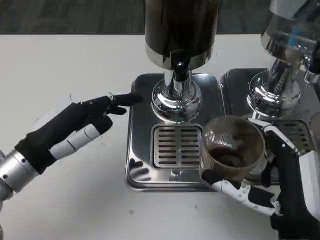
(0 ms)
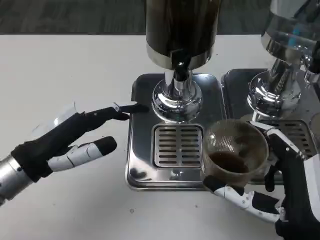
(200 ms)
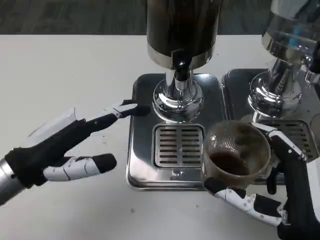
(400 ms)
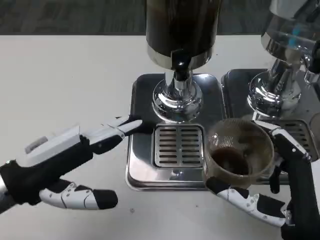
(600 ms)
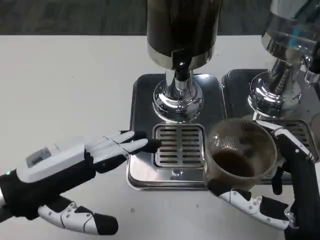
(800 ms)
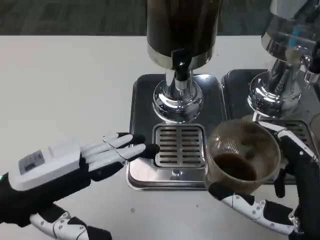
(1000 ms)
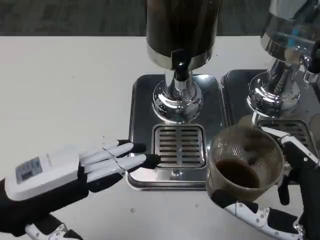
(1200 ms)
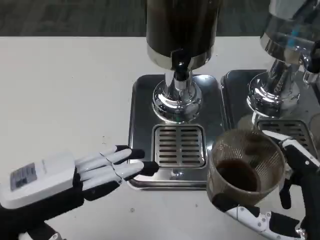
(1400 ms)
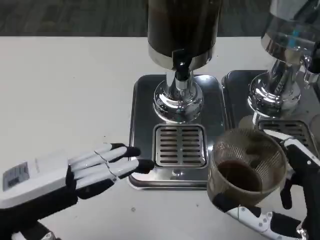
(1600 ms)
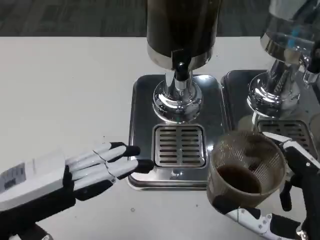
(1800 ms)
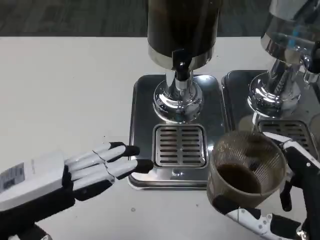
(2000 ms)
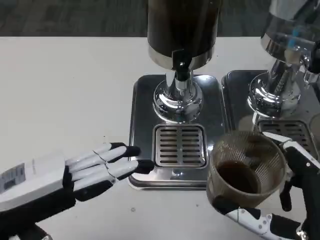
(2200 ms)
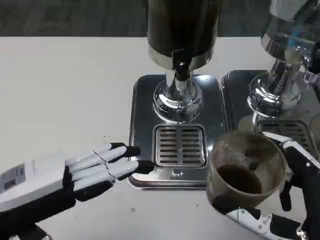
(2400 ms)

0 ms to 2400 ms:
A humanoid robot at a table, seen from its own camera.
Task of the whole recording: Grasp the cup under the faucet to collect the drink, then remove the cup.
0 ms to 1200 ms: The right hand moves roughly 5 cm. The left hand shifts approximately 5 cm backward.
1200 ms to 2400 ms: The hands stay close to where they were, moving slightly.

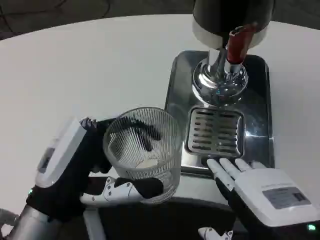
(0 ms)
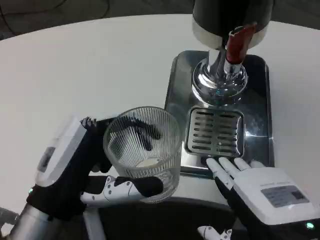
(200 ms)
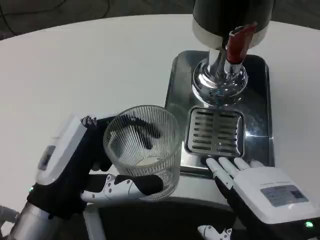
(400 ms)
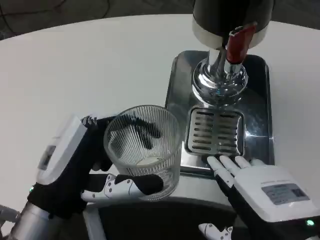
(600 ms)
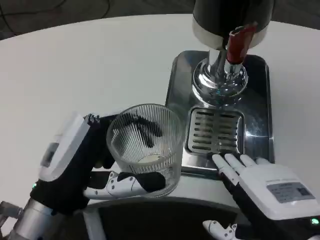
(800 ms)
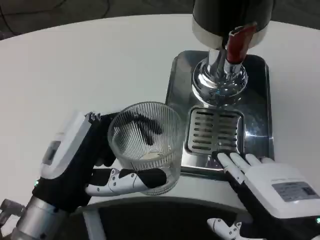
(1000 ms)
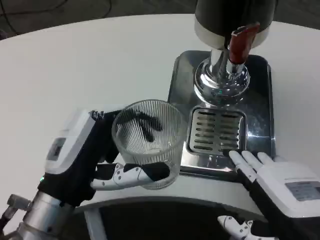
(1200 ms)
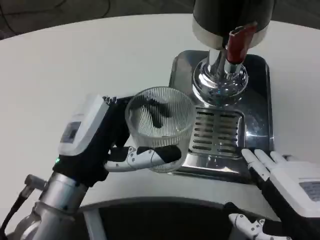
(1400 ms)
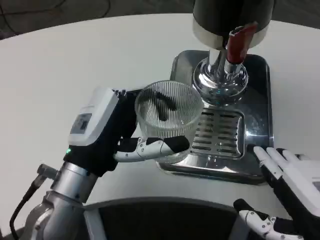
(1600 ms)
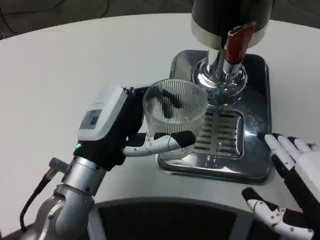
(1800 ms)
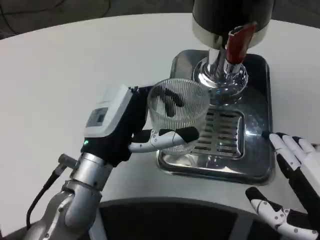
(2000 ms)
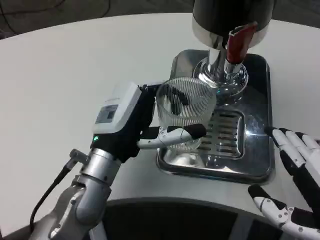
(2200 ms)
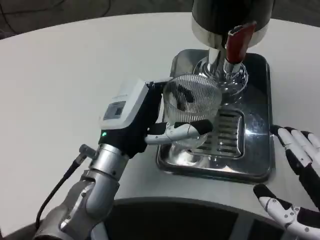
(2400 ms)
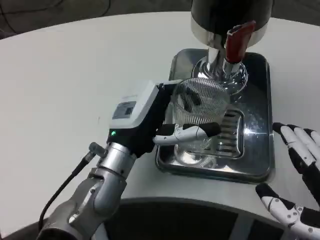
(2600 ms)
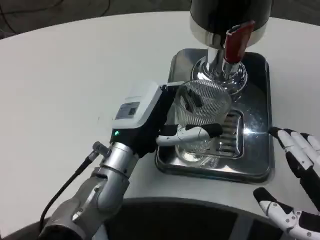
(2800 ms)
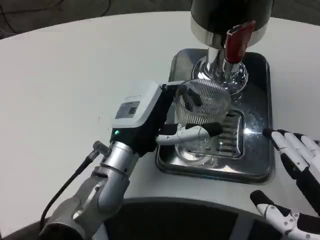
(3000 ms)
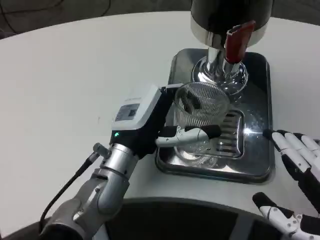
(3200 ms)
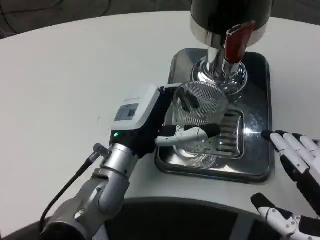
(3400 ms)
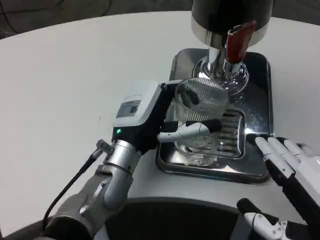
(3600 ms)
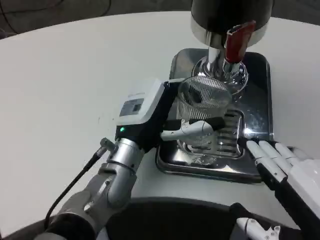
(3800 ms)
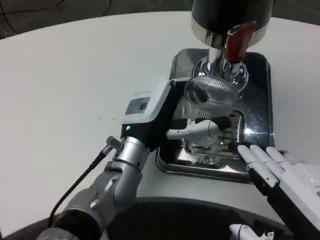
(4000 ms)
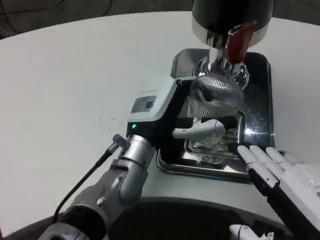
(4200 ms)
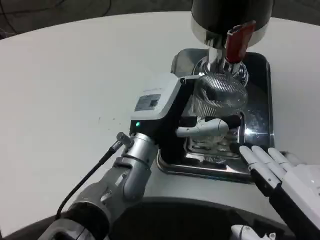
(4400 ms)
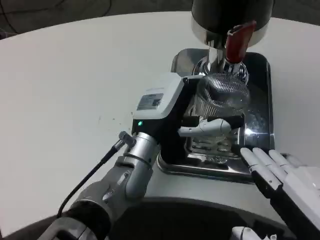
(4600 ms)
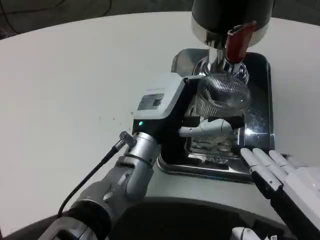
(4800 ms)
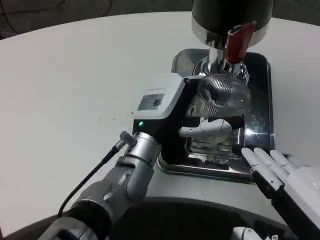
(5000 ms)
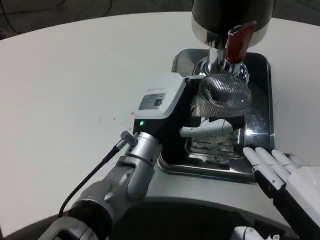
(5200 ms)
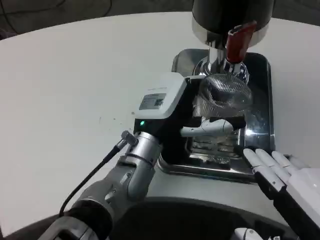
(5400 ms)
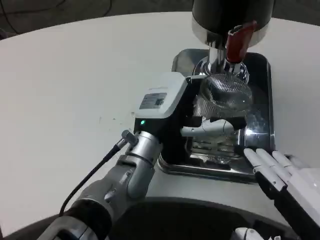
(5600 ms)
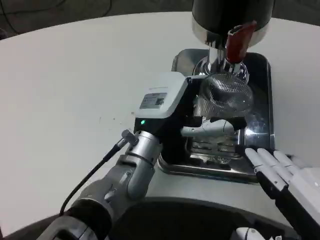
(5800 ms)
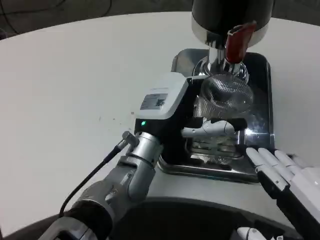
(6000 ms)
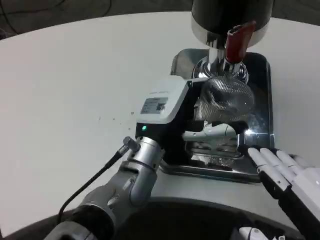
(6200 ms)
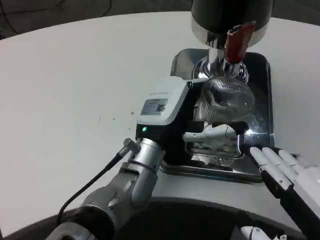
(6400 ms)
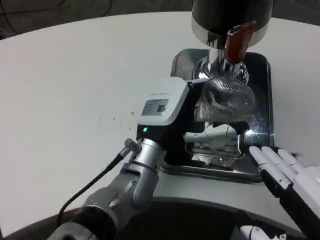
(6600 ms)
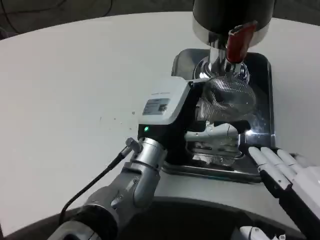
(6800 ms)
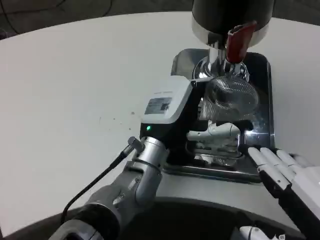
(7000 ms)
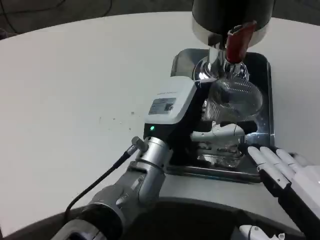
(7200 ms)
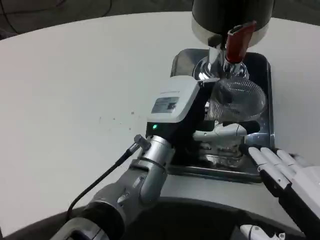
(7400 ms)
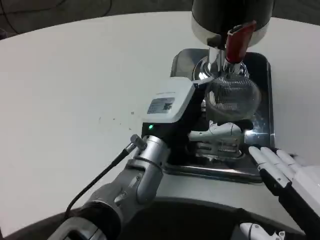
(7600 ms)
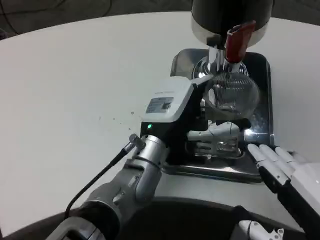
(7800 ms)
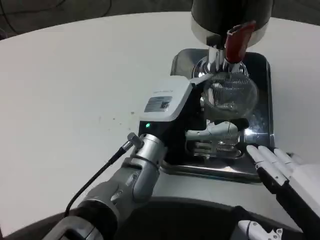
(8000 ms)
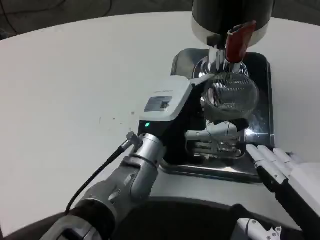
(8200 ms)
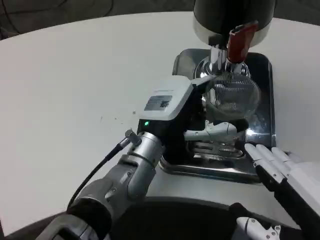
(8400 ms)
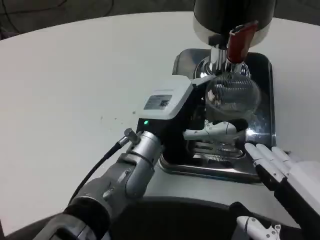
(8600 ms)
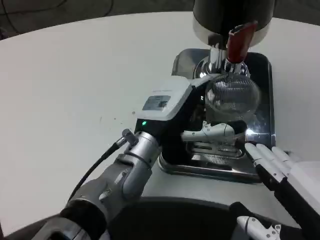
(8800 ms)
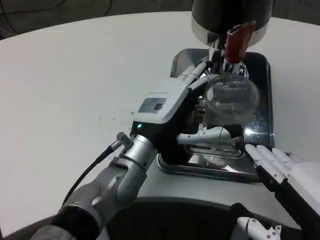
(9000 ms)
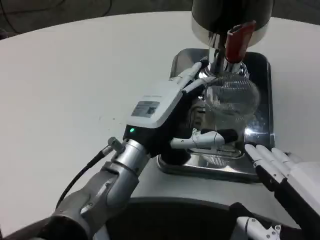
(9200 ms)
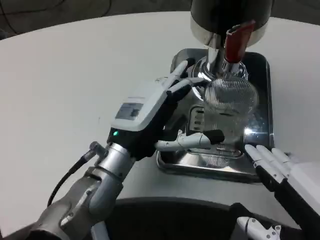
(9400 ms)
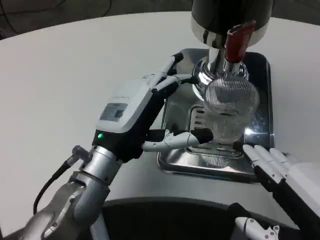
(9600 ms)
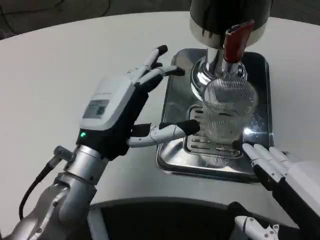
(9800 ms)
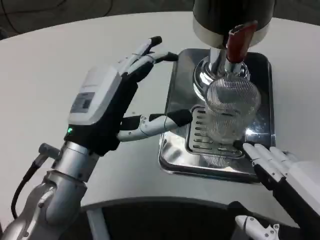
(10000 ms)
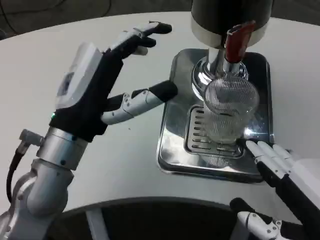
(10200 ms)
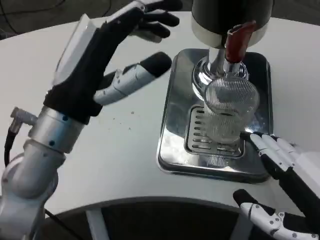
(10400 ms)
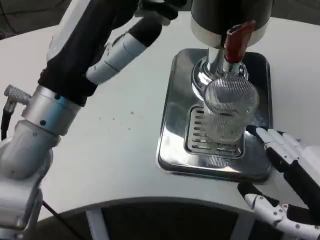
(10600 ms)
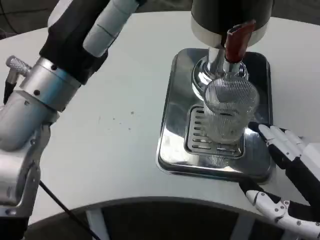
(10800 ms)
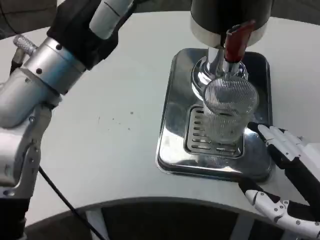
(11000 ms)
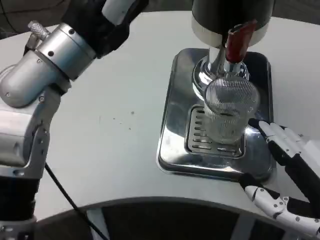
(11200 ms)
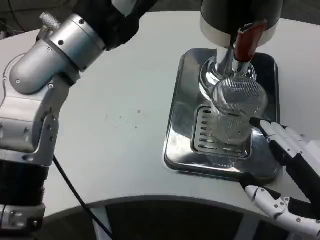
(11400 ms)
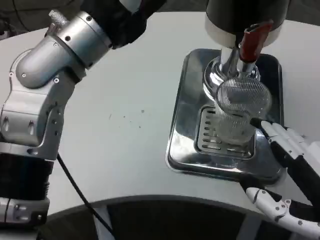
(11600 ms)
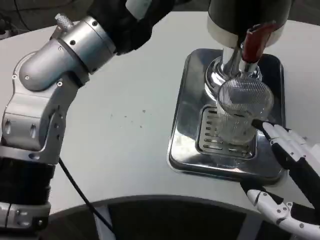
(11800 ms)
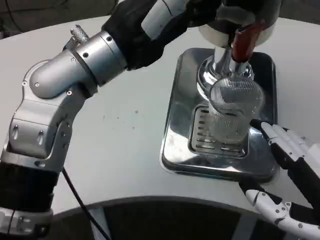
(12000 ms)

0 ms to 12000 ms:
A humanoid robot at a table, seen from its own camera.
Task of the whole recording: Grasp the cup under the faucet to collect the drink, then remove the cup.
0 ms to 1600 ms: The left hand travels forward by about 5 cm.
1600 ms to 3000 ms: The left hand goes roughly 5 cm forward.
4400 ms to 6000 ms: Neither hand changes place.
6000 ms to 9000 ms: There are only small adjustments of the hands.
9000 ms to 10400 ms: The left hand shifts about 15 cm upward, to the left and backward.
10400 ms to 12000 ms: The left hand travels upward by approximately 10 cm.

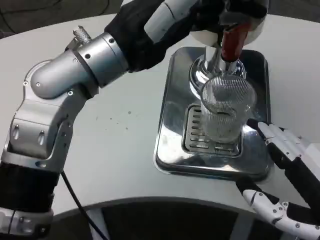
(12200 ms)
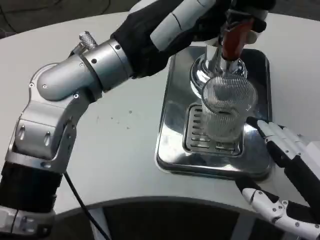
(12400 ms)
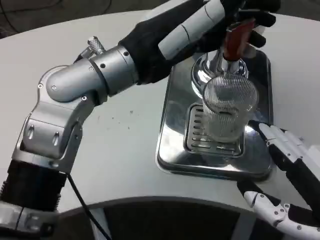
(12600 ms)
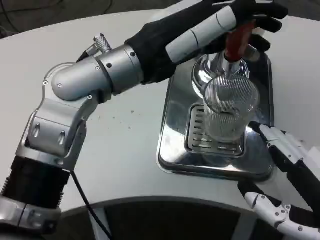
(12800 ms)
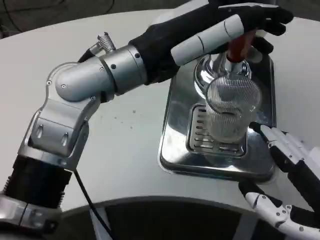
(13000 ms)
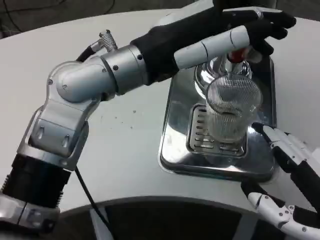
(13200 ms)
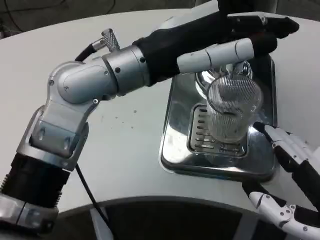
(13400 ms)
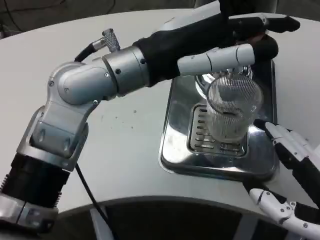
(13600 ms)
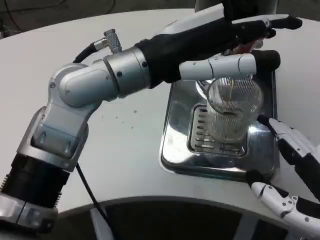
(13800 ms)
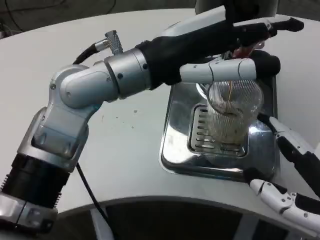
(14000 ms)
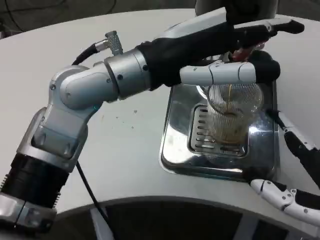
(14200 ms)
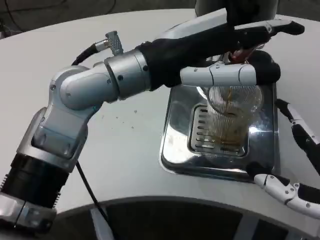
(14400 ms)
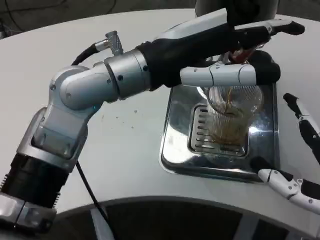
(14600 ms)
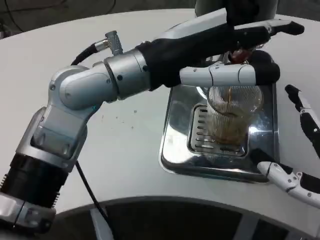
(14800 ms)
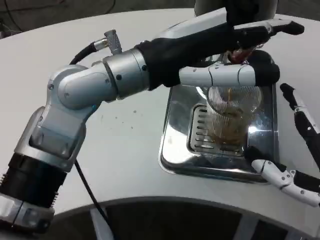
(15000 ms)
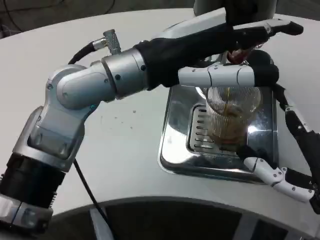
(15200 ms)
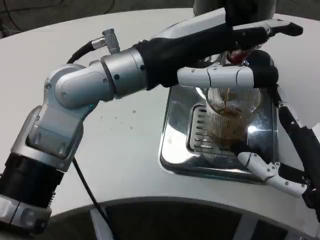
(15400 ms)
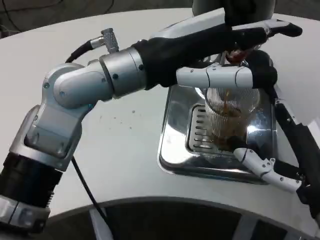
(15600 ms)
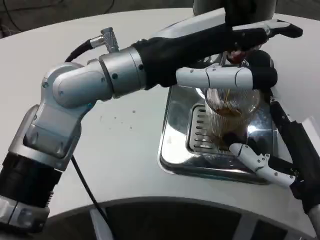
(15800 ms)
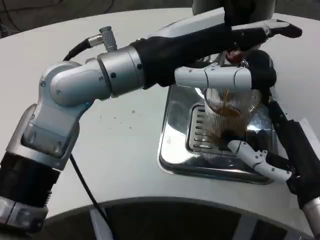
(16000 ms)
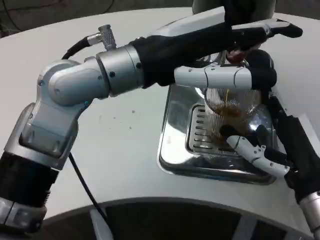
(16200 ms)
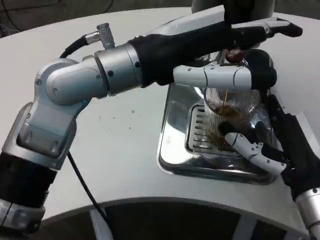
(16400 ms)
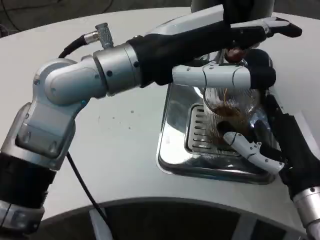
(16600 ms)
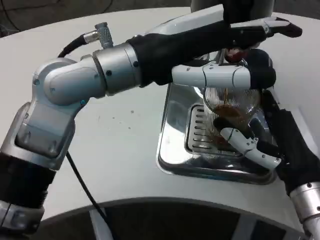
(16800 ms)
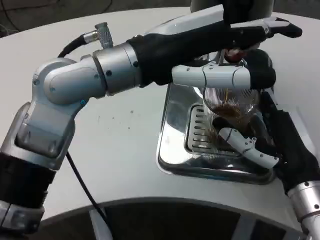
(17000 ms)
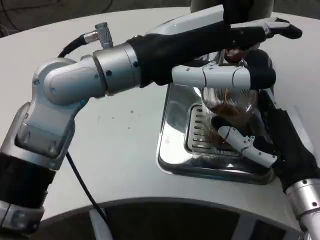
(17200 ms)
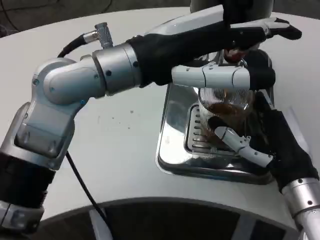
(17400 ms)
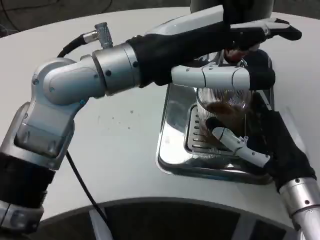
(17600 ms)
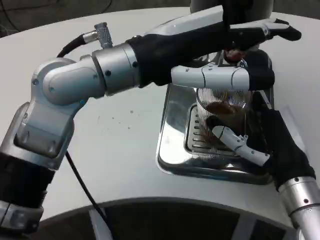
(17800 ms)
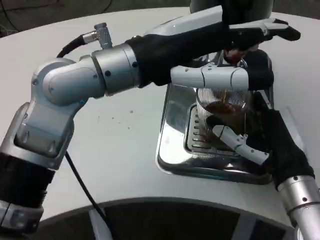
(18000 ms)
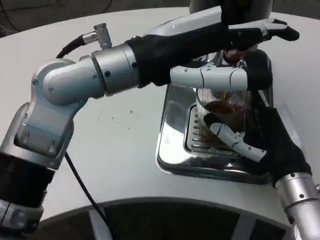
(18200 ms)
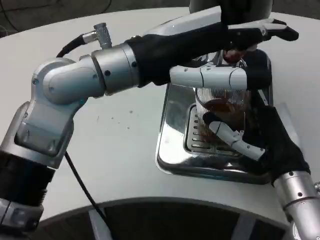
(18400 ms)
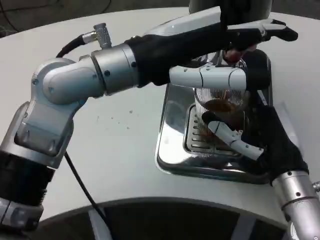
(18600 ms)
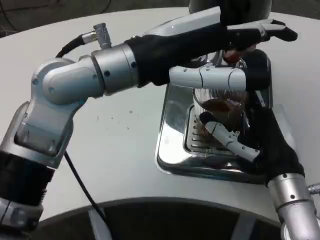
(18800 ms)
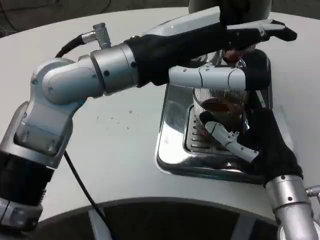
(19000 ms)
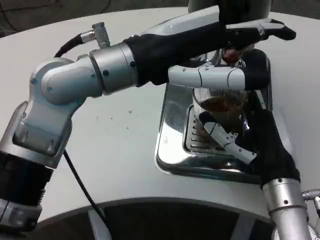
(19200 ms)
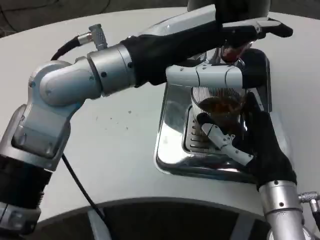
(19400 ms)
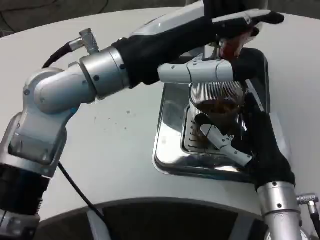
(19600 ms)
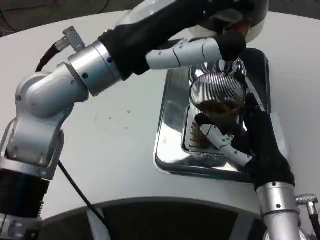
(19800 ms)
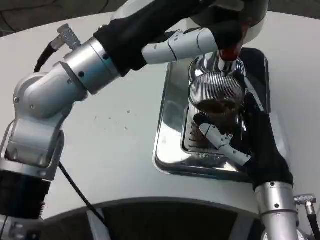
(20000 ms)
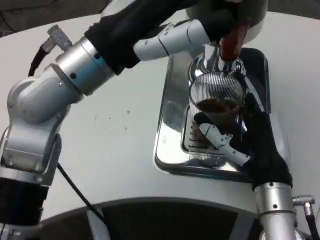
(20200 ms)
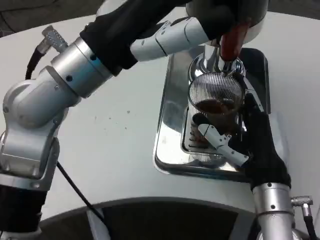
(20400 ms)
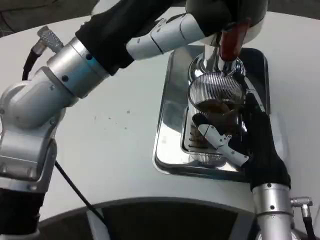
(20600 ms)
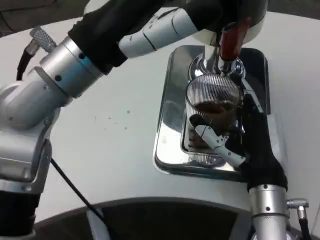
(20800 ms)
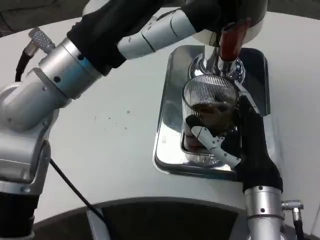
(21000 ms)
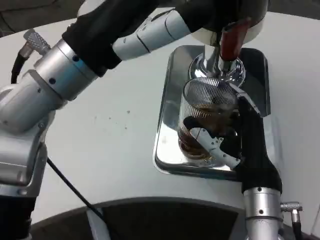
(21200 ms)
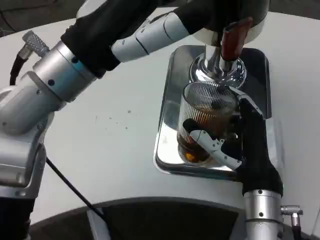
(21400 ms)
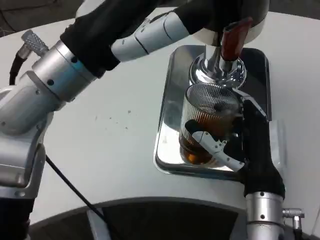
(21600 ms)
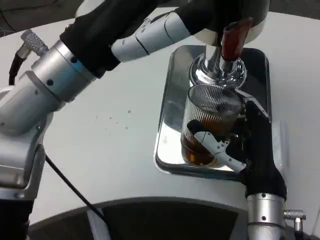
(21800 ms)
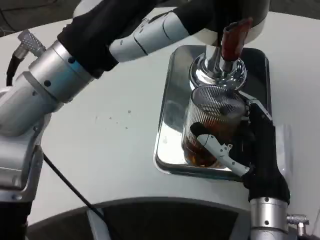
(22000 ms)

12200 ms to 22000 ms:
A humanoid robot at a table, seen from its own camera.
Task of the whole recording: Grasp the cup under the faucet to collect the drink, then remove the cup.
13600 ms to 15000 ms: The right hand goes about 5 cm forward.
15000 ms to 16400 ms: The right hand shifts about 5 cm forward.
16400 ms to 19200 ms: The hands stay close to where they were, moving slightly.
